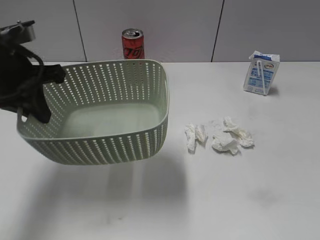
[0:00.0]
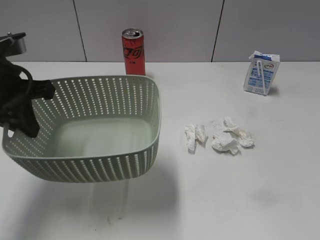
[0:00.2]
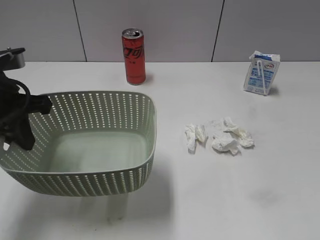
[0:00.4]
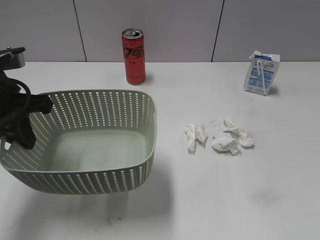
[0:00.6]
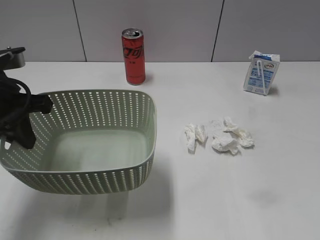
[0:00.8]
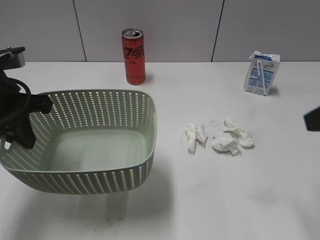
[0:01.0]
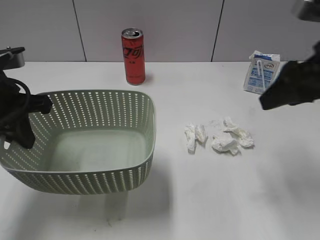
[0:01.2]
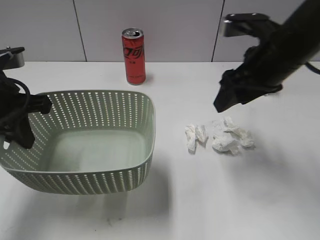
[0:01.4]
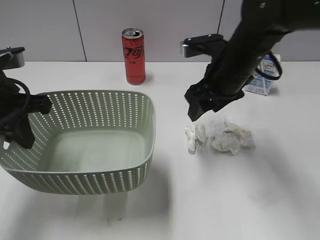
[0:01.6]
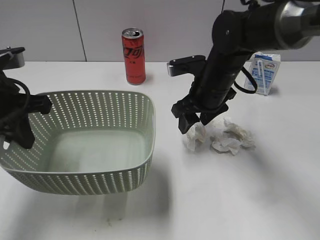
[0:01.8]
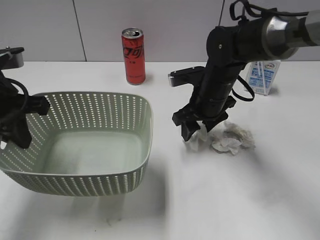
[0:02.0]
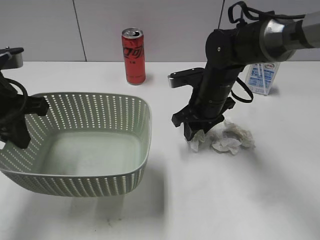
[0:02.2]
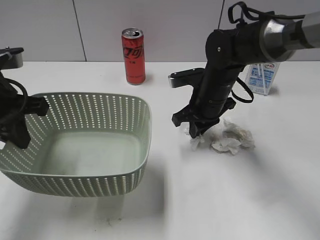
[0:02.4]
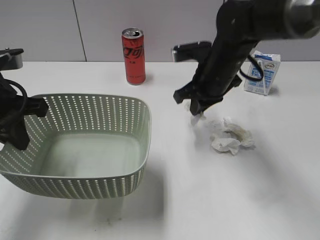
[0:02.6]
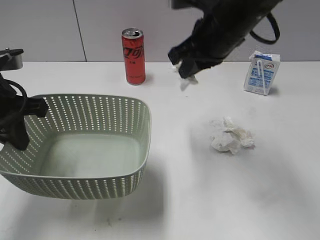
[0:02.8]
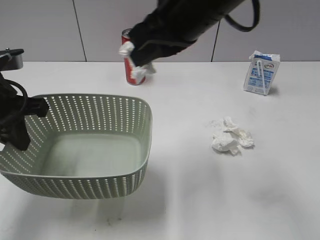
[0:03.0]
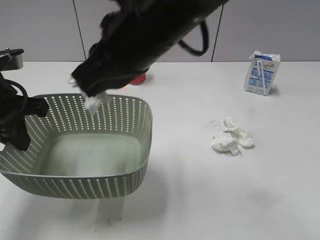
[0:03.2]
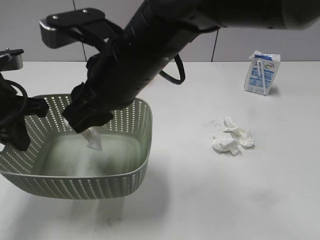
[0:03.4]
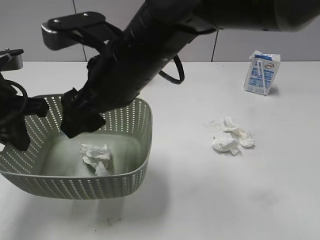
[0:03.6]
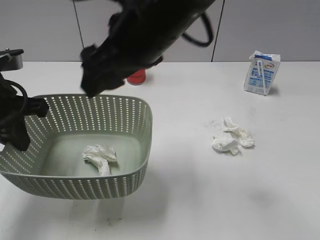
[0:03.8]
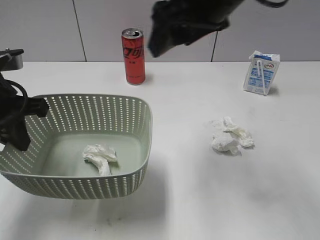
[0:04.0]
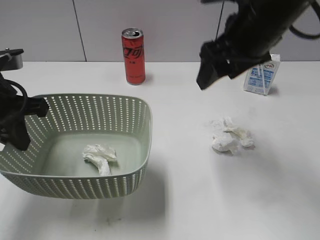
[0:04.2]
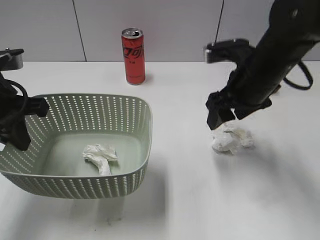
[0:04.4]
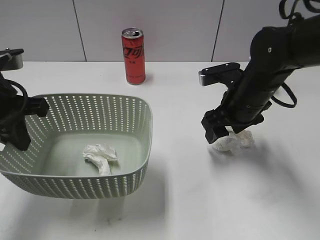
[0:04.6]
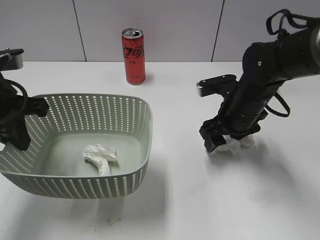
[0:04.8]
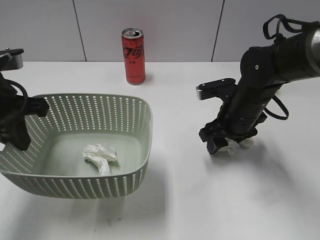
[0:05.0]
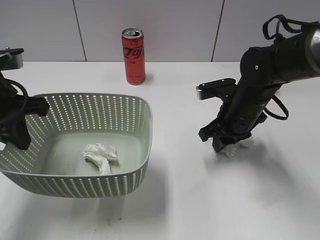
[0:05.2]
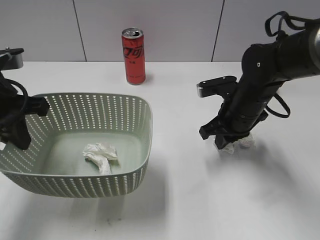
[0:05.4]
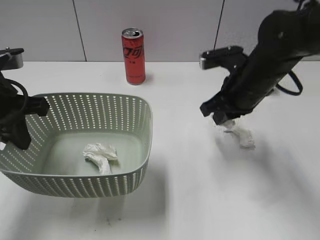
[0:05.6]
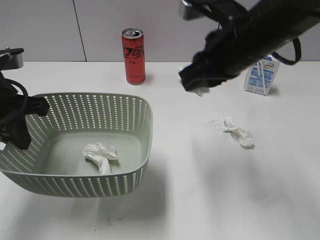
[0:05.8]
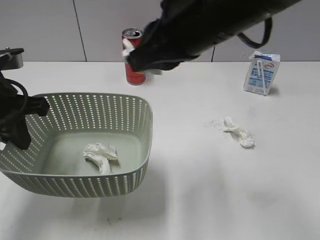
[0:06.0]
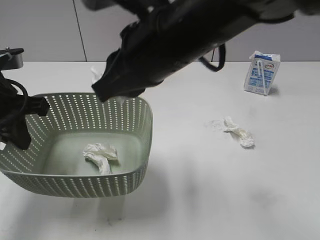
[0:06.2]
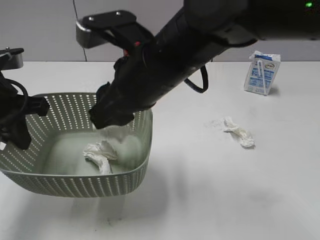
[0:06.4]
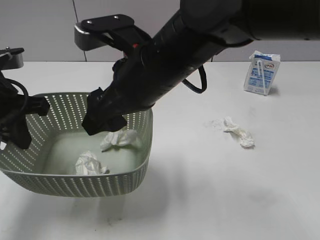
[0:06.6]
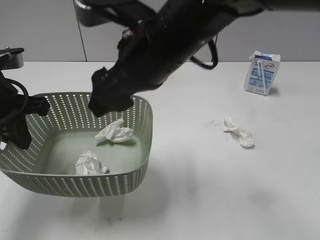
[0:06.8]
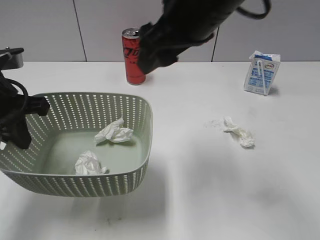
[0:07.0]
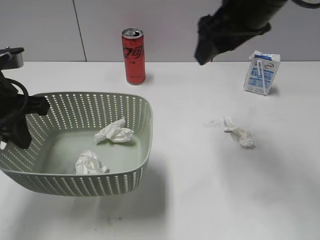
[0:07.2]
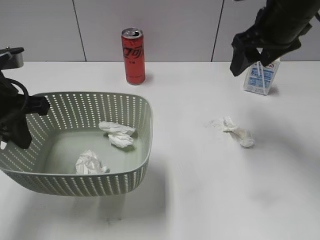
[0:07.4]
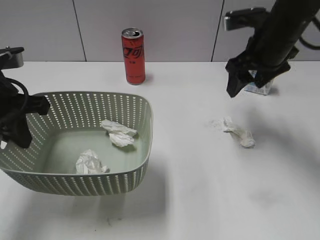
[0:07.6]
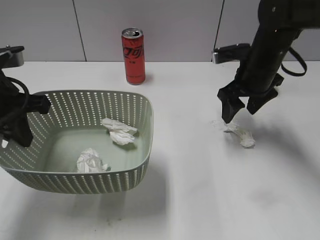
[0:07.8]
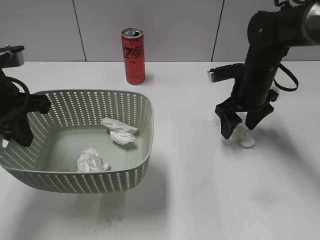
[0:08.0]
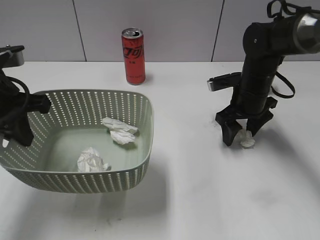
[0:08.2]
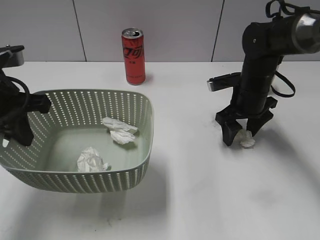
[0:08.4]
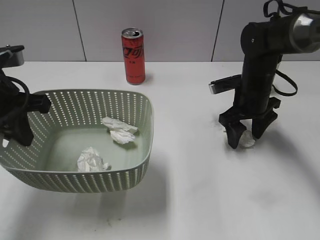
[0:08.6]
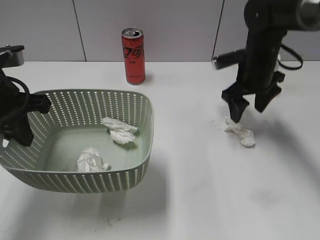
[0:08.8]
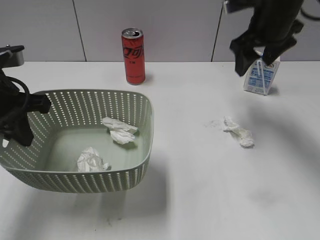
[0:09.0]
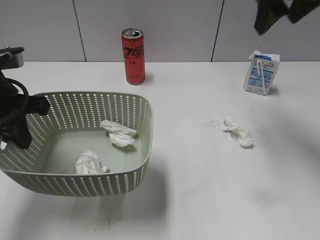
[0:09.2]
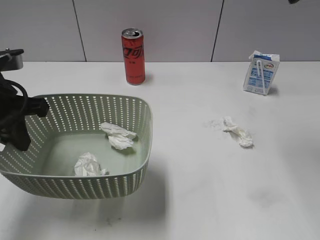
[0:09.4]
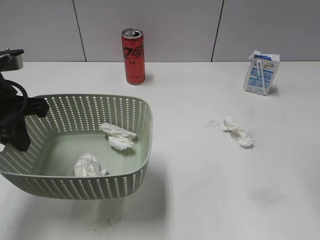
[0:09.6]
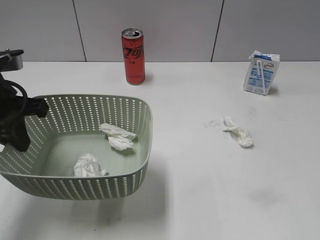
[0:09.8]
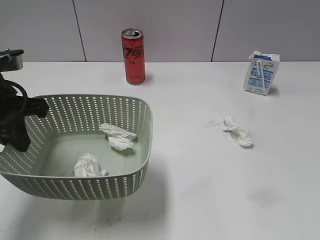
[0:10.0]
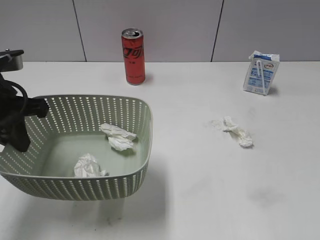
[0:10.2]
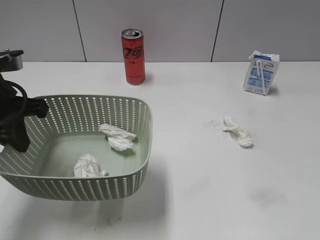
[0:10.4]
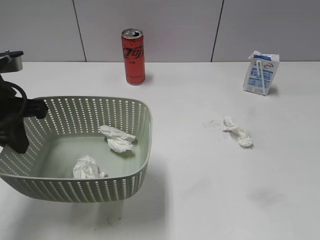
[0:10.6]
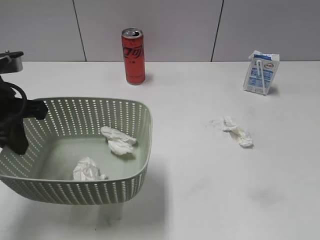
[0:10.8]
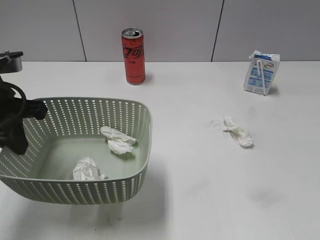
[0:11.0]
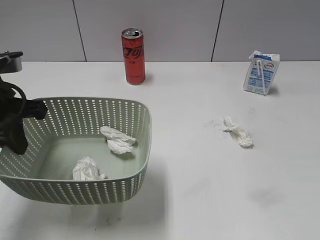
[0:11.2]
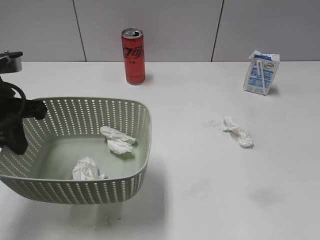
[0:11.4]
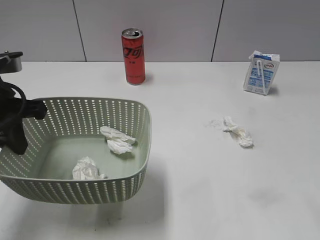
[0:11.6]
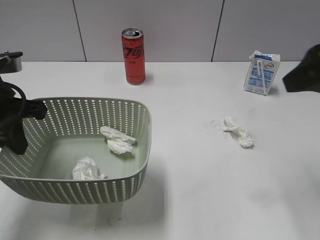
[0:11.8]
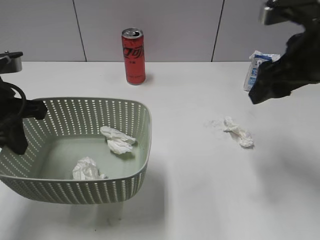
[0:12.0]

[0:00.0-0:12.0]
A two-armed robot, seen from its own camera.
Step, 0:00.6 to 0:02.4: Grasp the waste paper with right gripper.
Step, 0:02.6 to 0:03.6: Place the waste paper in the basket with right gripper.
Step, 0:03.8 to 0:05.4: Grasp the waste paper with right gripper.
Step, 0:05.6 to 0:06.8: Place the waste paper in the basket with right gripper.
0:00.0 to 0:01.6: The right gripper shifts approximately 40 cm forward and to the left.
0:01.6 to 0:03.0: The right gripper shifts some 15 cm upward, to the left and backward, and closes.
0:03.0 to 0:04.4: The right gripper shifts roughly 15 cm downward and to the right, and opens up.
0:04.4 to 0:06.0: The right gripper shifts approximately 15 cm upward, to the left and backward, and closes its fingers.
0:06.0 to 0:07.6: The right gripper moves forward, to the right and downward, some 20 cm, and opens its fingers.
0:07.6 to 0:09.0: The right gripper travels downward and back again, about 10 cm each way.
0:09.0 to 0:10.4: The right gripper travels backward by roughly 40 cm.
0:10.4 to 0:12.0: The right gripper goes roughly 25 cm forward.

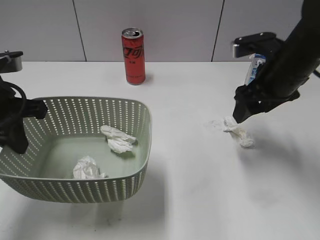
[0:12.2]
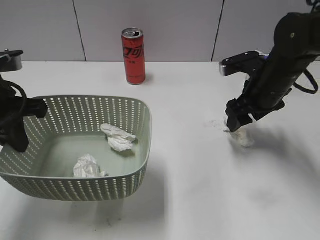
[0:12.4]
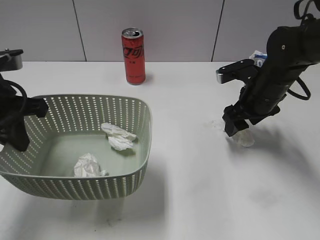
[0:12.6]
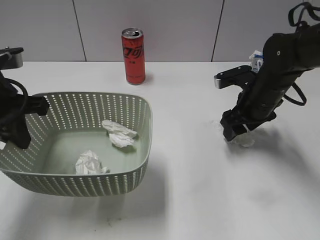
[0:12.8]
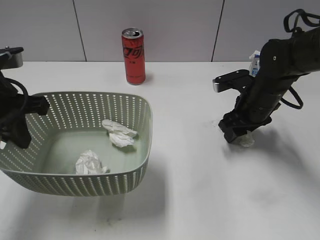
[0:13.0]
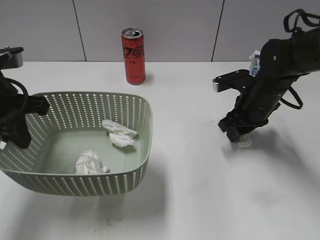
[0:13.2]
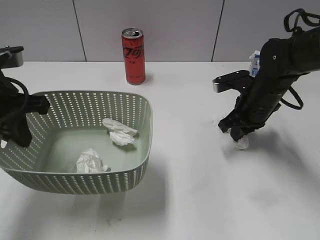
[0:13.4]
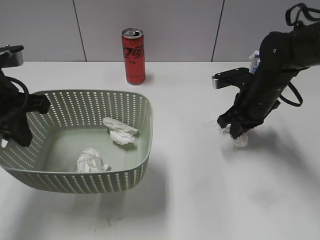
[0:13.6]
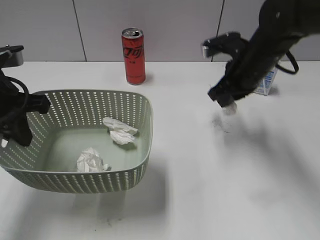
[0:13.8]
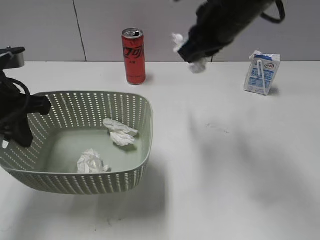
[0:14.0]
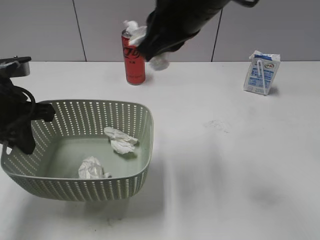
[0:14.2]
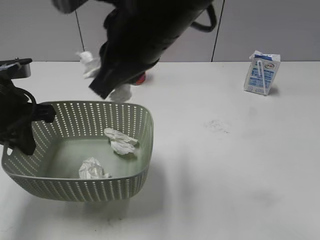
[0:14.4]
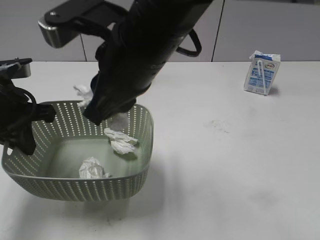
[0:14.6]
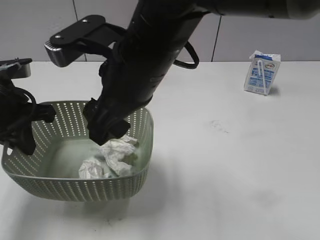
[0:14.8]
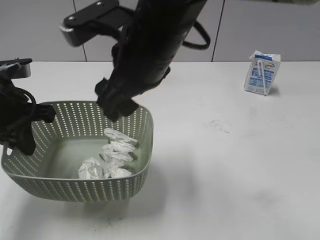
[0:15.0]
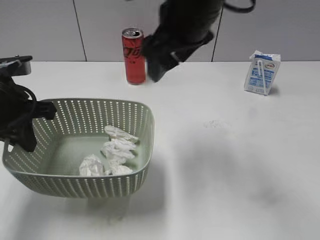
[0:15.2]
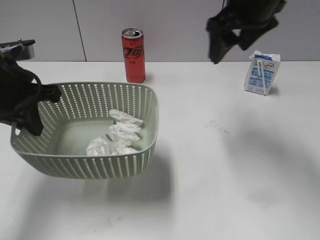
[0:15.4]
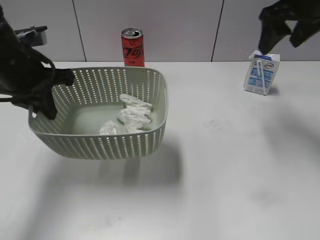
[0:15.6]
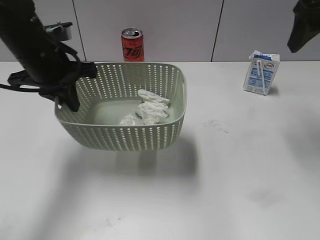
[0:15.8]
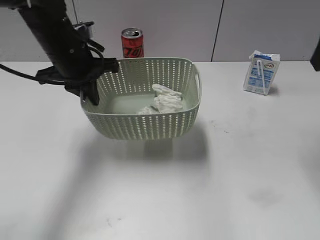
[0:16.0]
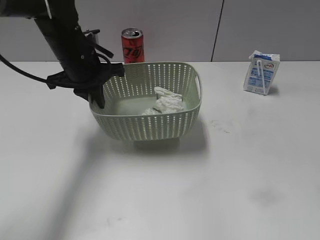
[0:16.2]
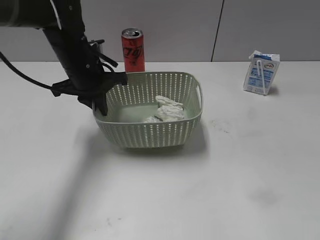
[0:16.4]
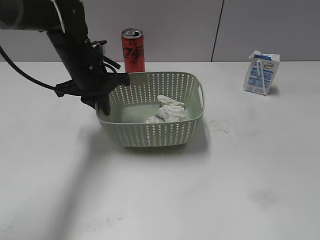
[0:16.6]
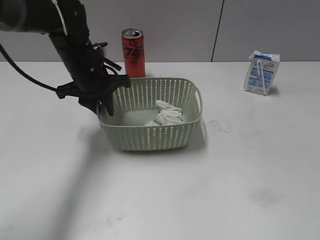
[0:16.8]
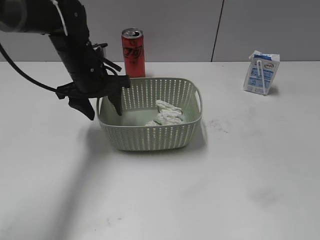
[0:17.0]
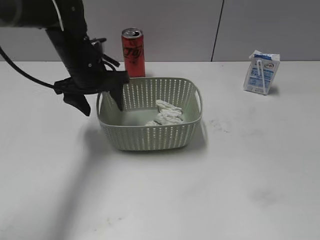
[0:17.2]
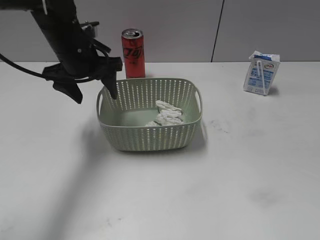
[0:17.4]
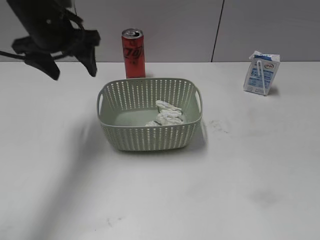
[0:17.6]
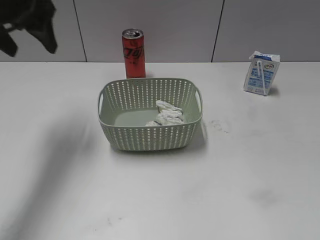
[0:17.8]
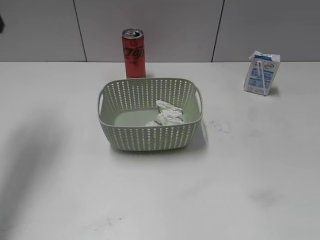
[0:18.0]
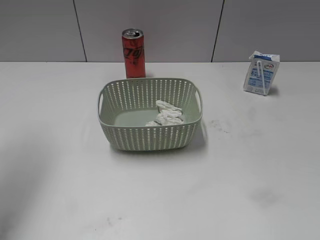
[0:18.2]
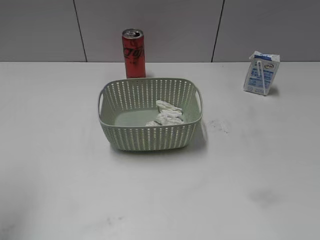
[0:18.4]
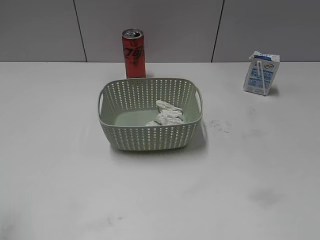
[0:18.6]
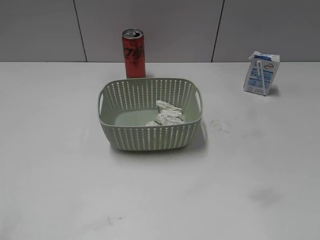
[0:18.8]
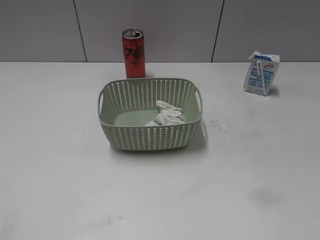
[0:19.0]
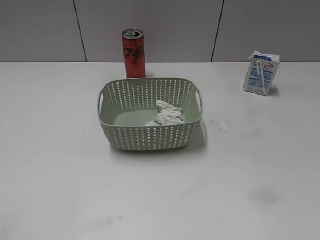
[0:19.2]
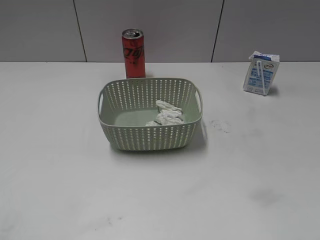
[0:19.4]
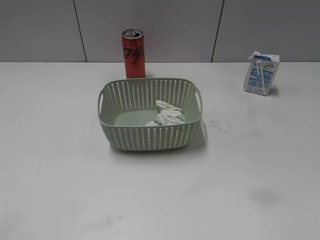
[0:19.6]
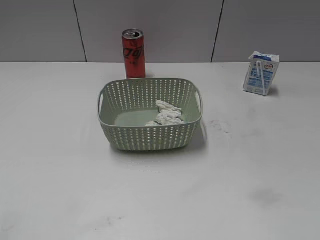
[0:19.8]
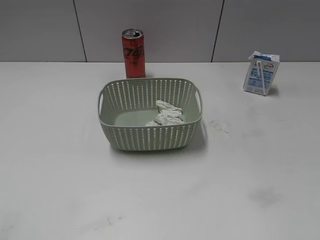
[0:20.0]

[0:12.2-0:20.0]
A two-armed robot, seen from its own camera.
Step, 0:13.6 to 0:15.0: Place the waste paper in the basket with right gripper.
Step, 0:15.2 to 0:17.4: Place the basket on the table with left gripper.
0:12.2 to 0:13.8: The right gripper closes.
0:13.8 to 0:15.4: The right gripper travels upward by roughly 15 cm, moves approximately 20 cm to the left and comes back, and opens.
0:15.4 to 0:16.8: The right gripper travels backward and to the right by some 35 cm, while the left gripper travels forward, to the right and downward by about 15 cm.
0:16.8 to 0:18.4: The left gripper goes some 35 cm upward, backward and to the left, and opens up, while the right gripper is displaced backward by approximately 5 cm.
0:18.4 to 0:20.0: The left gripper heads backward and downward, covering about 25 cm.
